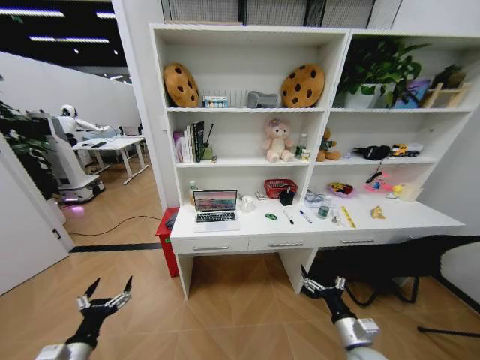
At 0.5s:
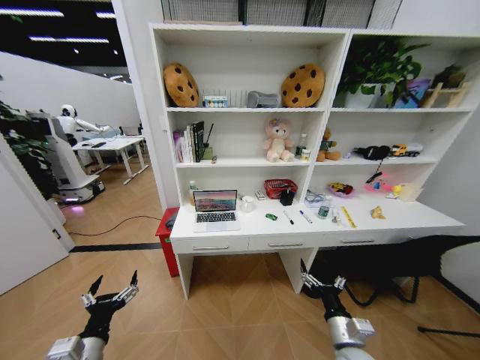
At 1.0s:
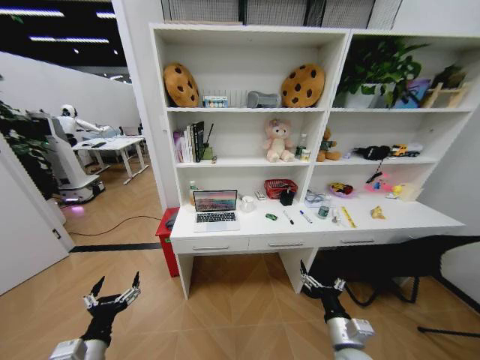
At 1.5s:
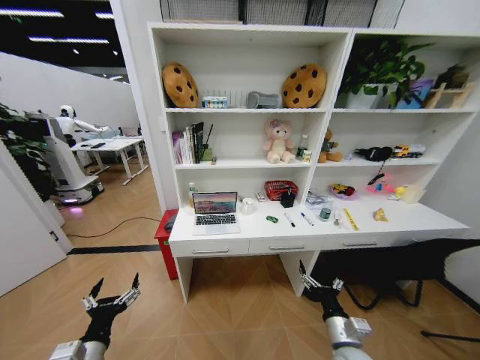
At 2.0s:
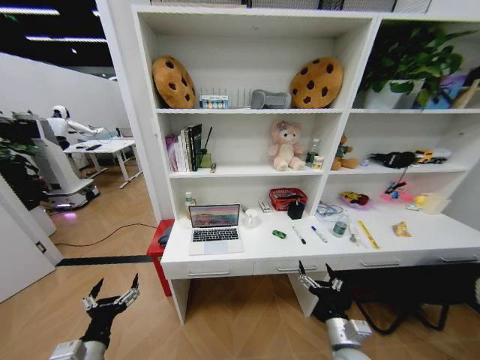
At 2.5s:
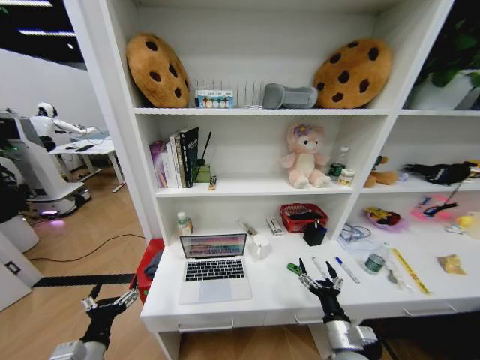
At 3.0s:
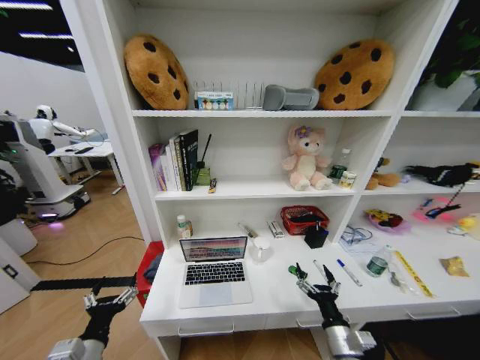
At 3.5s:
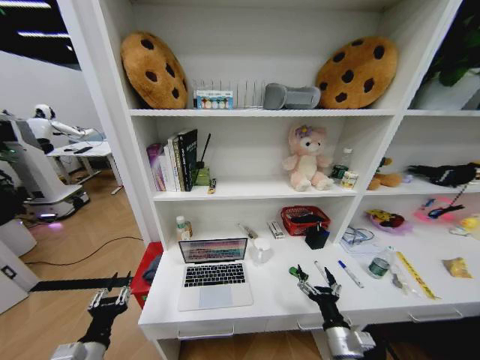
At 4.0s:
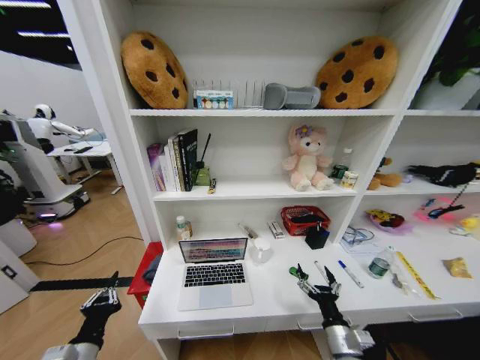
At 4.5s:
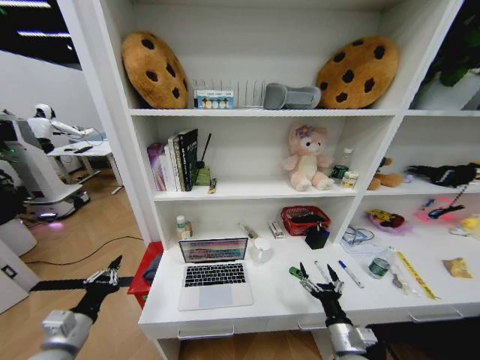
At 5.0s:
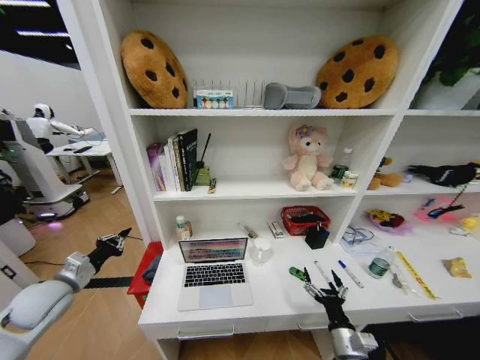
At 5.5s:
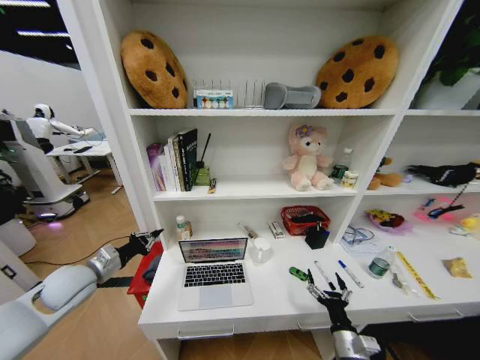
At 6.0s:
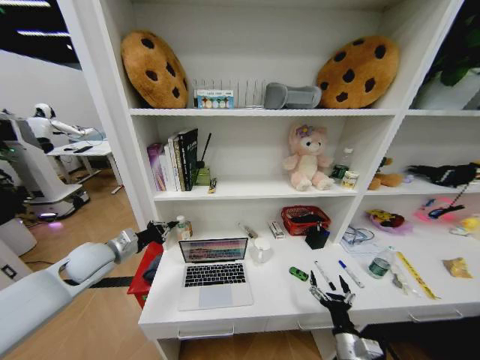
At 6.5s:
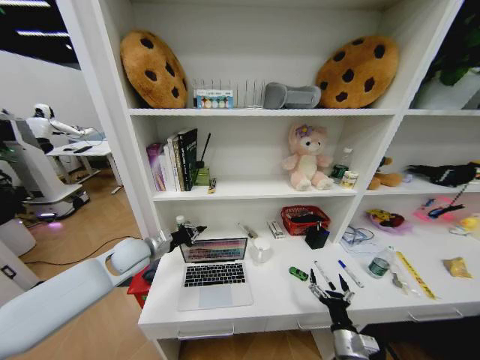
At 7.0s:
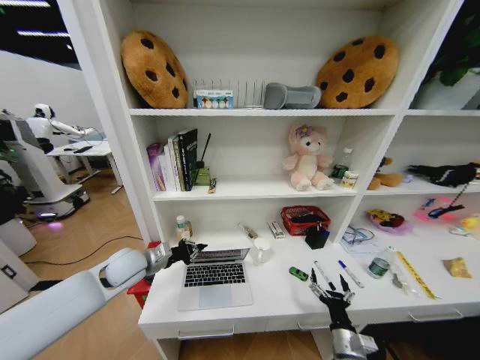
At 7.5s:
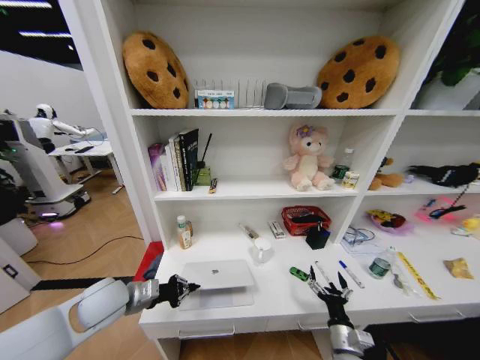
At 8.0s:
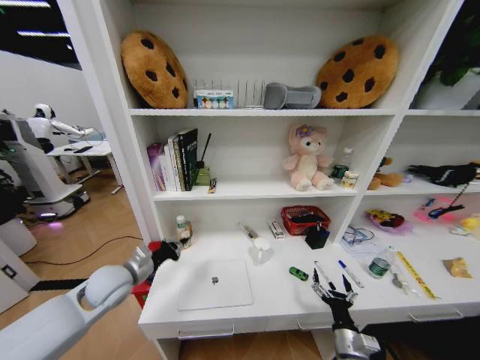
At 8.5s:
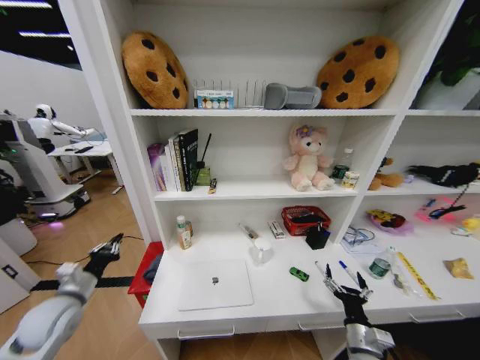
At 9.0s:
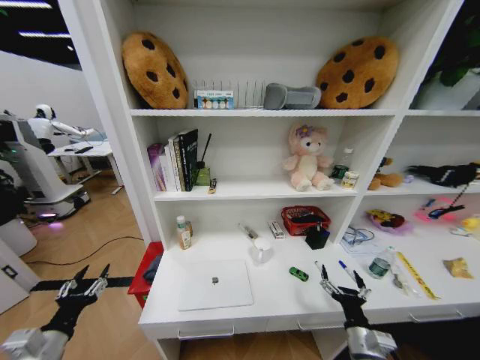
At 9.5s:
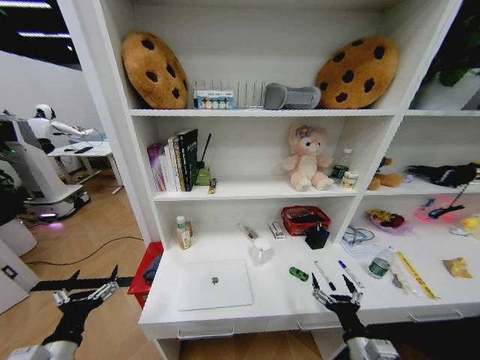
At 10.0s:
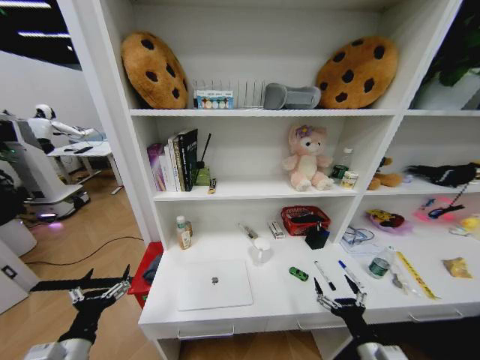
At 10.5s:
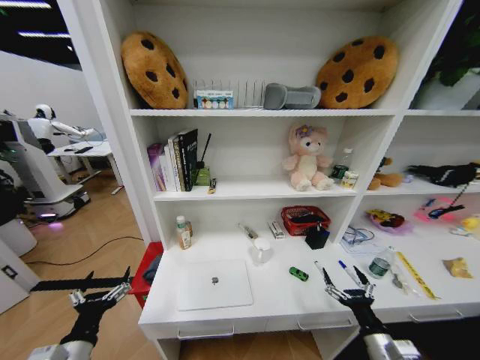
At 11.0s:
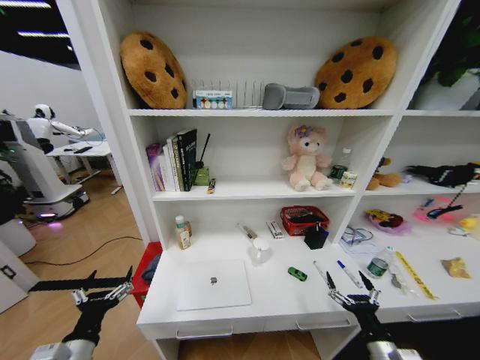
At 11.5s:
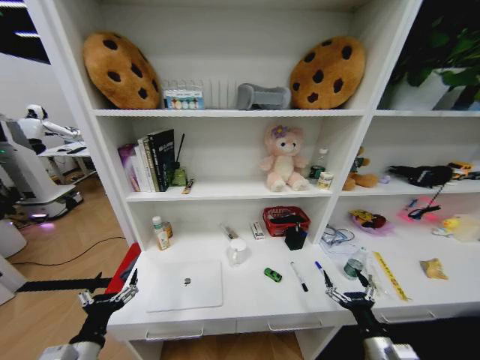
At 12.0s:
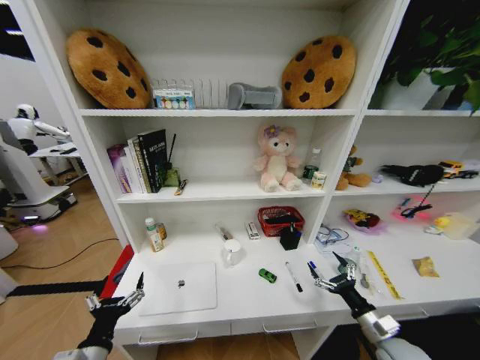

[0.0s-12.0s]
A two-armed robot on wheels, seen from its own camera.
Task of the whole recording: Organize the objects on the table.
2.0s to 4.0s: The left gripper closes up.
4.0s to 6.0s: The left gripper moves forward and upward, roughly 25 cm.
6.0s to 8.0s: The left gripper moves to the right, approximately 5 cm, and reaches roughly 5 cm backward, then returns.
8.0s to 10.0s: The right gripper moves upward, approximately 5 cm, while the left gripper goes approximately 20 cm backward, and opens up.
10.0s to 12.0s: The right gripper heads to the right and forward, covering approximately 10 cm.

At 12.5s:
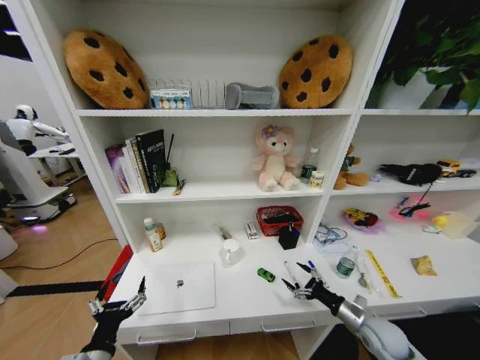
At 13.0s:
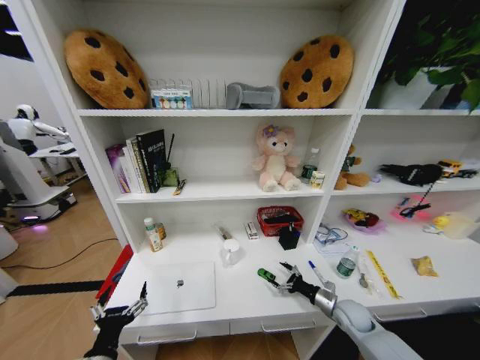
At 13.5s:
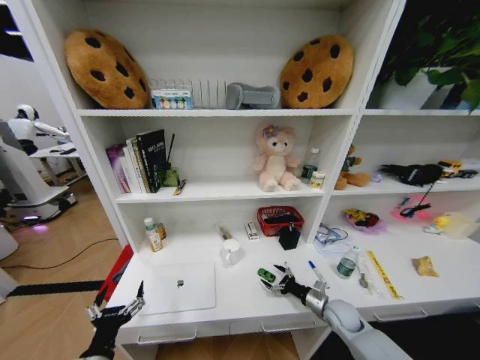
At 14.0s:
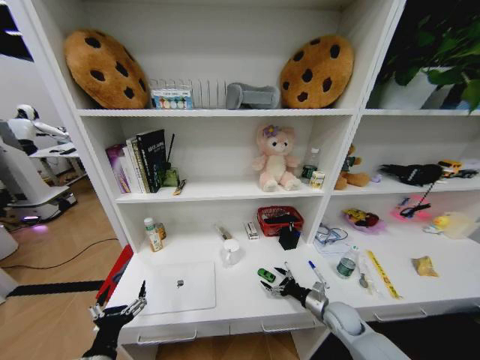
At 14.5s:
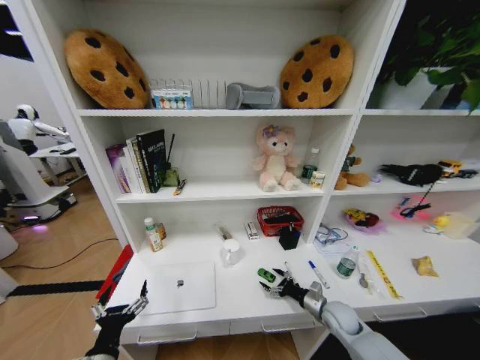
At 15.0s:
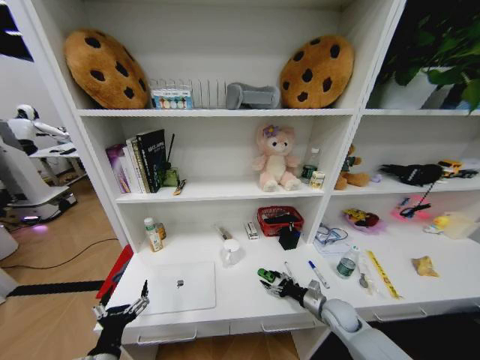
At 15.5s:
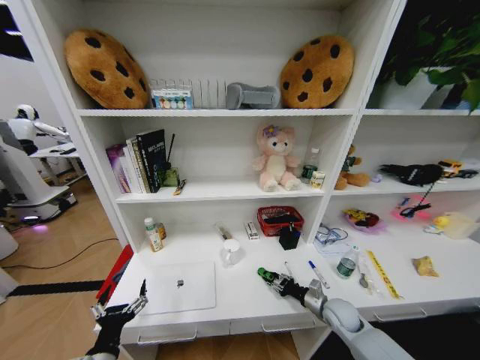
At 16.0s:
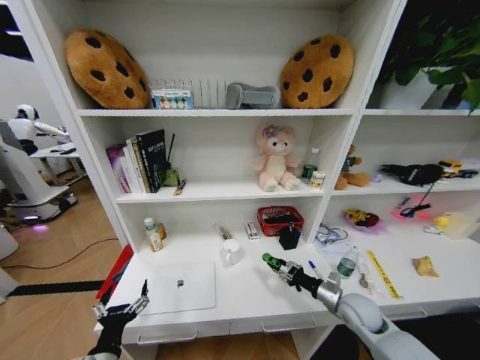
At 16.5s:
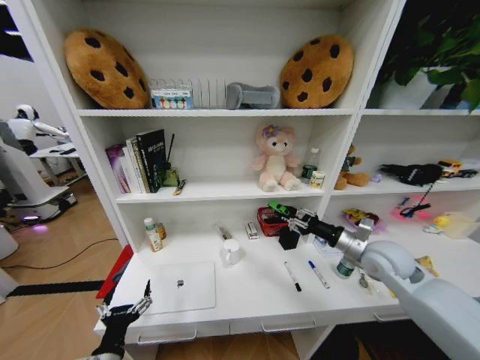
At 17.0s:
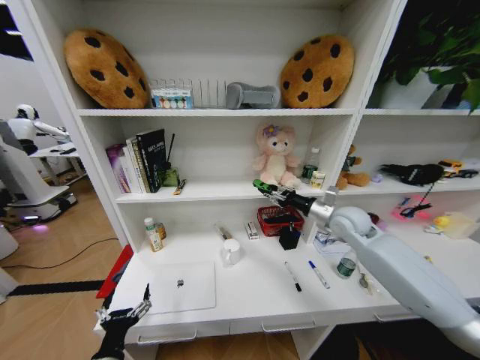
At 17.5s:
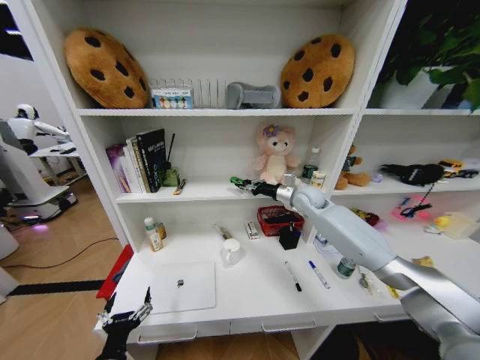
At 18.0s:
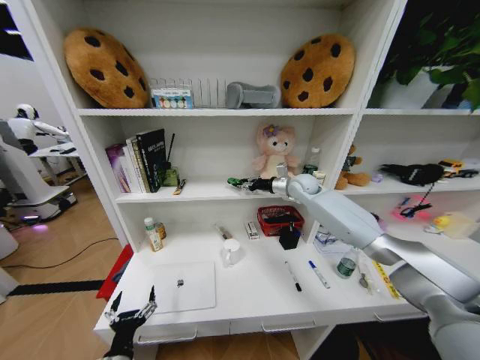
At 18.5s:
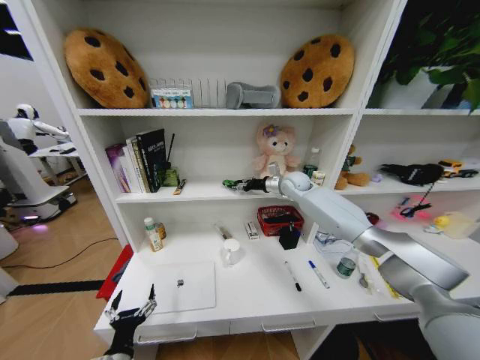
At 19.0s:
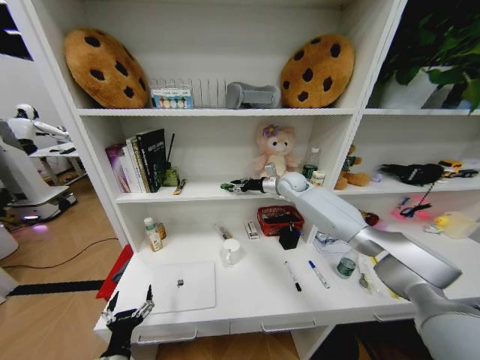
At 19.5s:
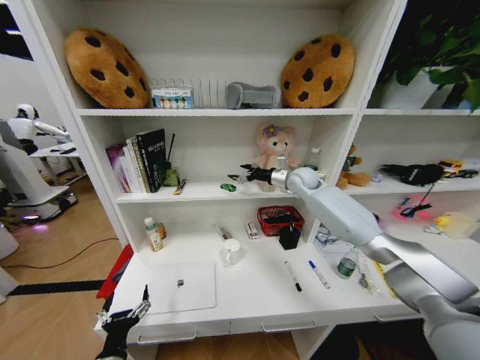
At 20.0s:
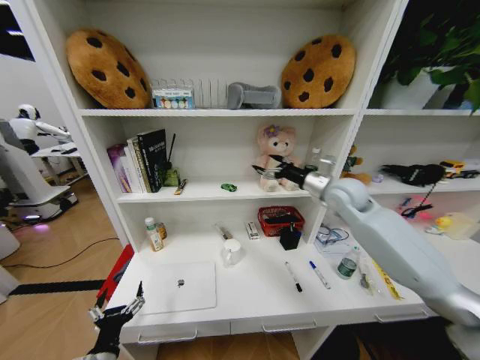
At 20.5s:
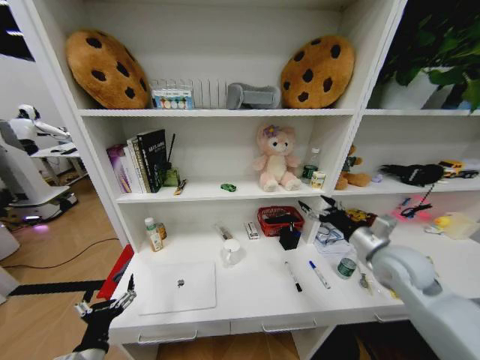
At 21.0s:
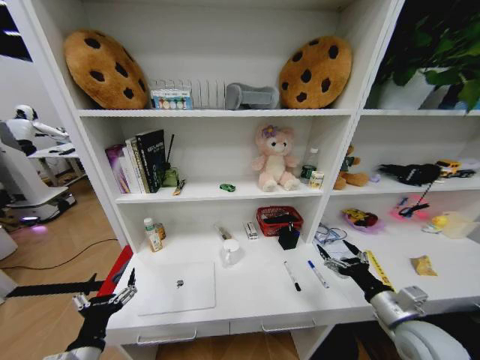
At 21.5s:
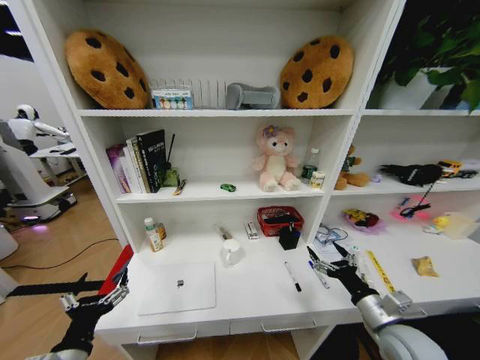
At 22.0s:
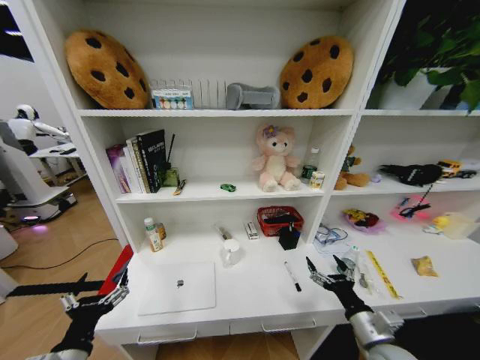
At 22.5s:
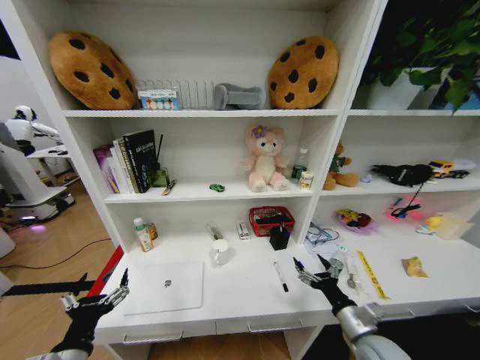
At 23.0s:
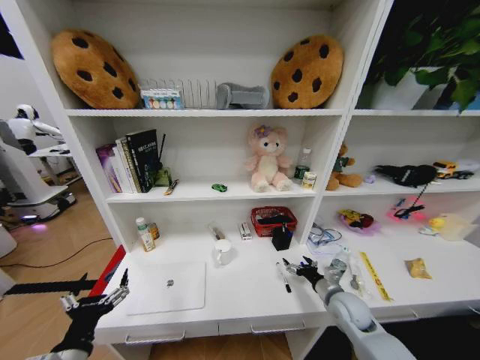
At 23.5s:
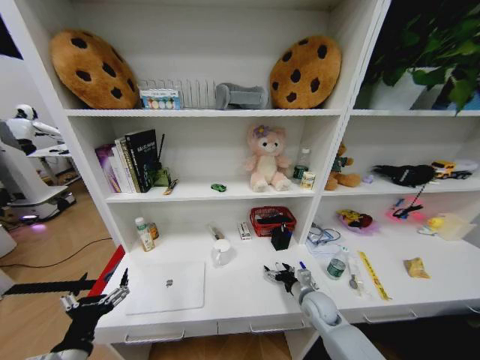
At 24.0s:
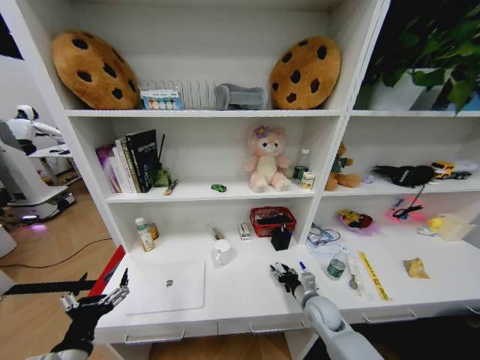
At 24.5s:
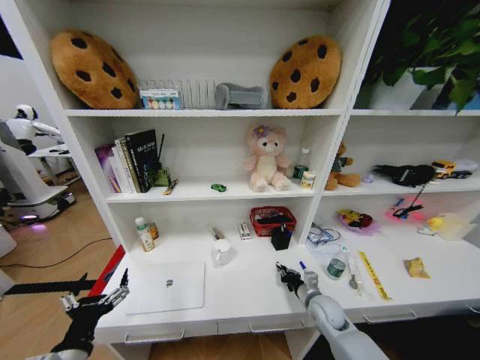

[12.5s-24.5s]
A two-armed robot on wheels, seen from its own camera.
Task of the whole recording: Organize the objects on the table.
12.5s to 14.5s: The right gripper shifts roughly 10 cm forward, to the left and downward.
14.5s to 16.5s: The right gripper goes about 25 cm upward, and closes.
16.5s to 18.5s: The right gripper shifts some 30 cm forward and to the left.
18.5s to 20.5s: The right gripper is displaced backward and to the right by about 35 cm, and opens up. The left gripper is displaced upward by about 5 cm.
20.5s to 22.5s: The right gripper travels downward and backward by roughly 20 cm, while the left gripper travels upward by approximately 5 cm.
22.5s to 24.5s: The right gripper travels forward and downward by roughly 15 cm, and closes.

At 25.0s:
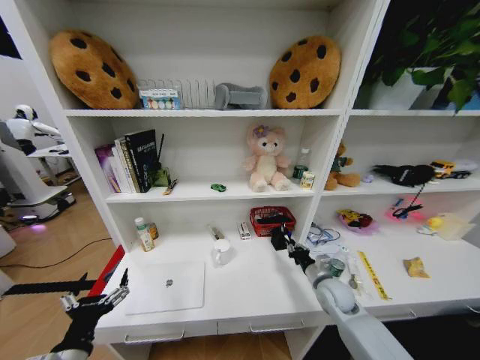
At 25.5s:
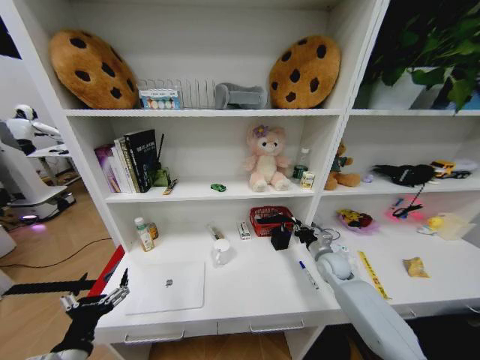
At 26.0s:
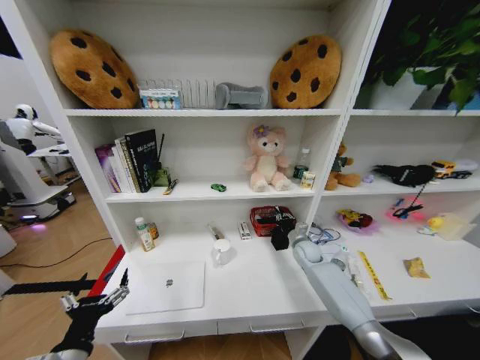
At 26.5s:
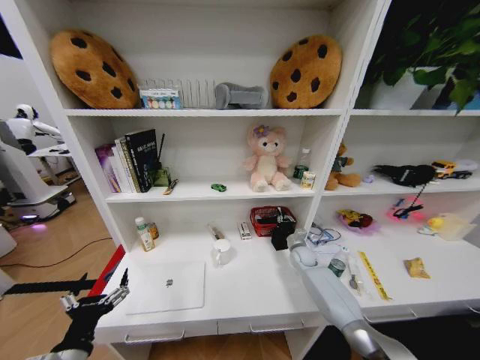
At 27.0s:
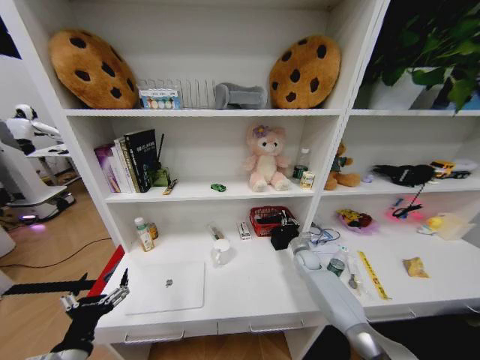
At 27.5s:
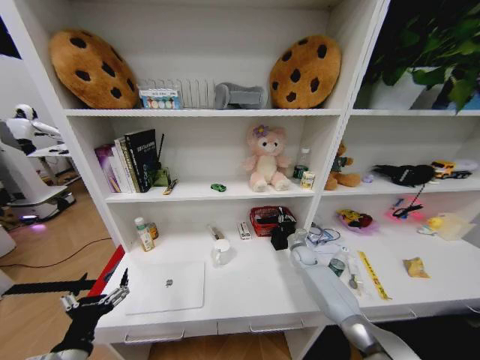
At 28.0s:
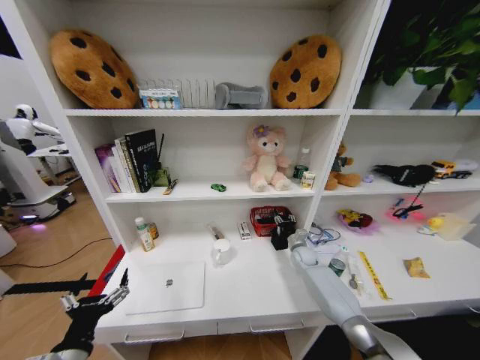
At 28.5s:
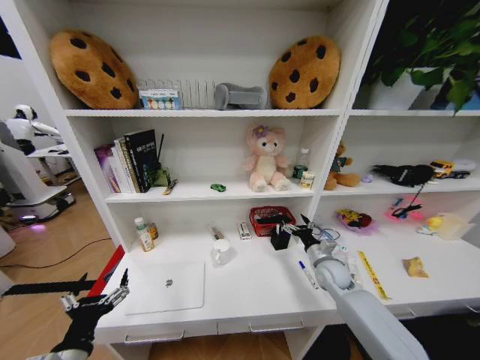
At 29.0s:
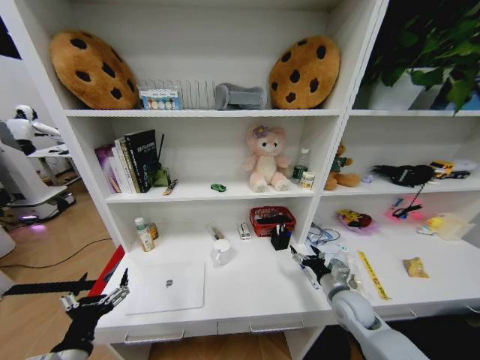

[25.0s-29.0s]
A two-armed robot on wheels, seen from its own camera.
Task of the whole recording: Organize the objects on the table.
25.0s to 27.0s: The right gripper moves forward and downward, some 15 cm.
27.0s to 29.0s: The right gripper is displaced backward by roughly 20 cm, and opens.
